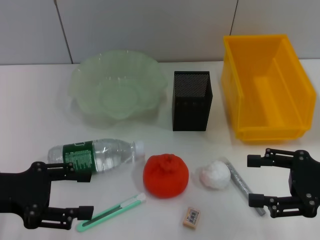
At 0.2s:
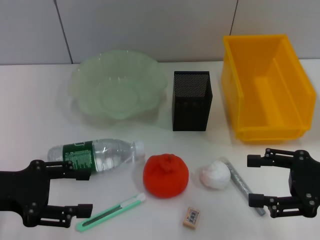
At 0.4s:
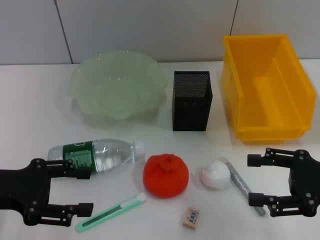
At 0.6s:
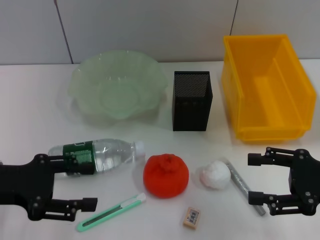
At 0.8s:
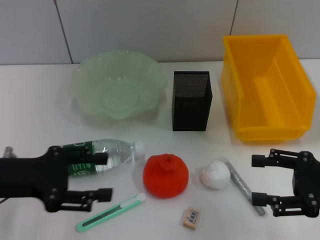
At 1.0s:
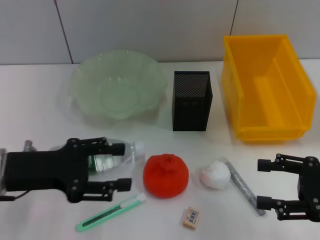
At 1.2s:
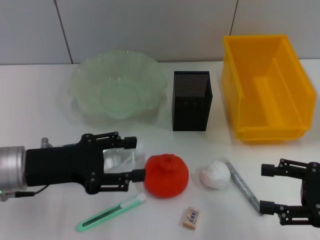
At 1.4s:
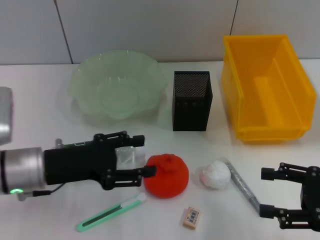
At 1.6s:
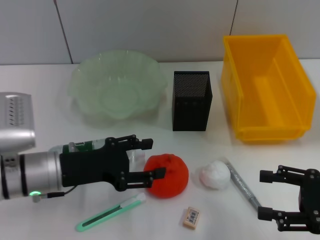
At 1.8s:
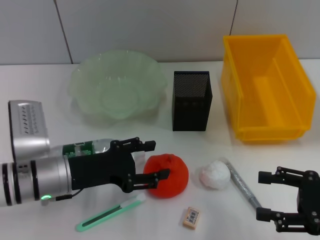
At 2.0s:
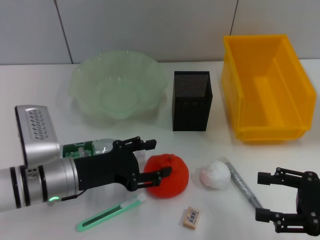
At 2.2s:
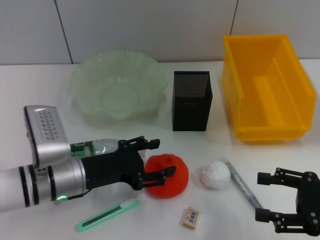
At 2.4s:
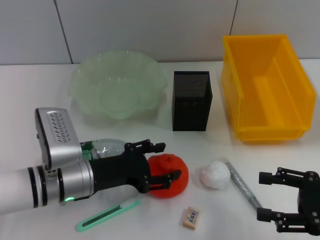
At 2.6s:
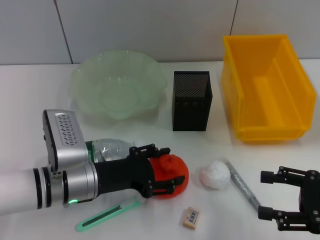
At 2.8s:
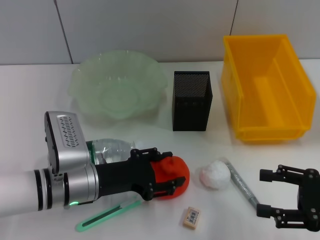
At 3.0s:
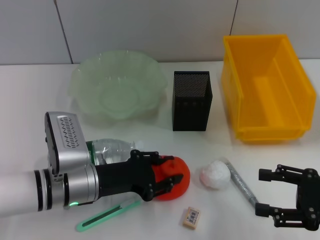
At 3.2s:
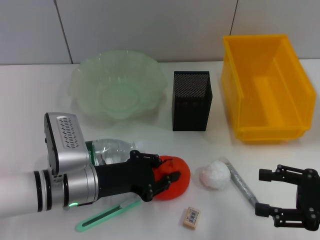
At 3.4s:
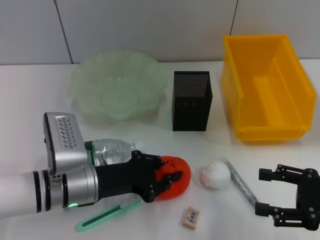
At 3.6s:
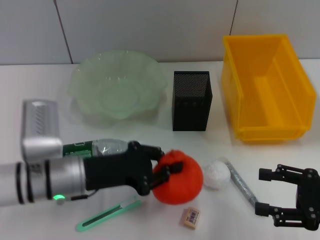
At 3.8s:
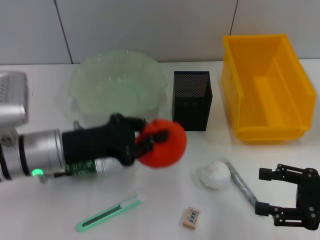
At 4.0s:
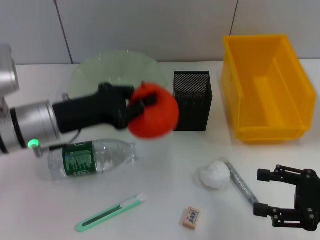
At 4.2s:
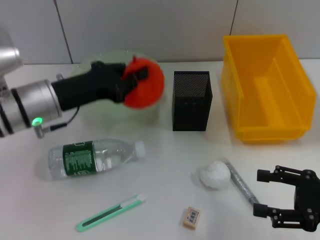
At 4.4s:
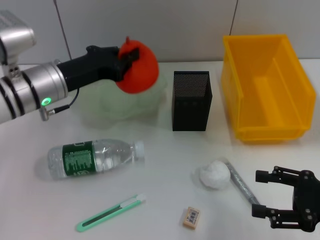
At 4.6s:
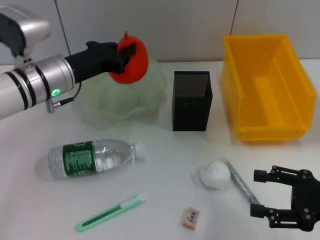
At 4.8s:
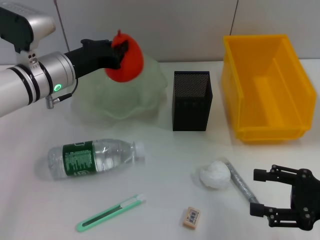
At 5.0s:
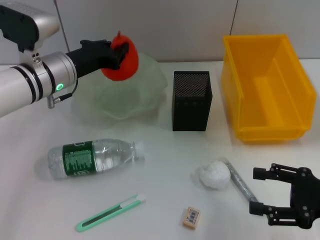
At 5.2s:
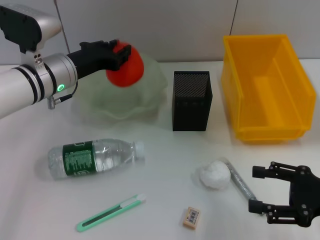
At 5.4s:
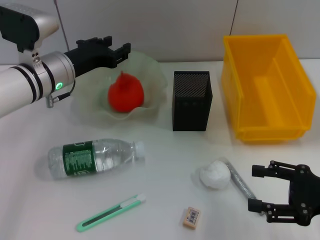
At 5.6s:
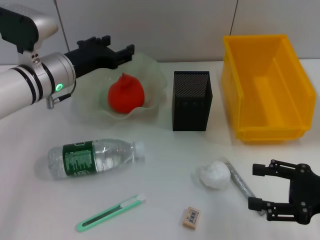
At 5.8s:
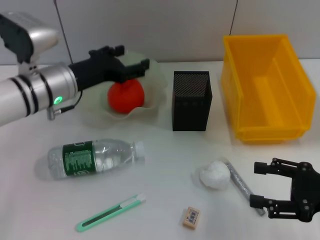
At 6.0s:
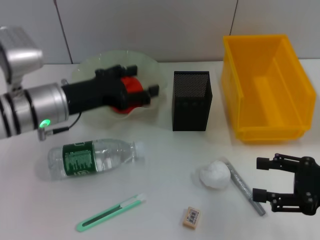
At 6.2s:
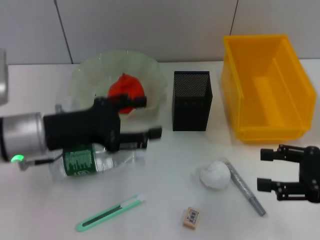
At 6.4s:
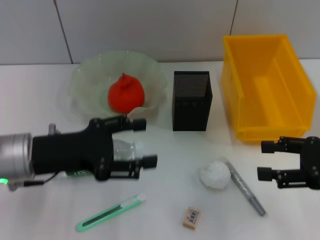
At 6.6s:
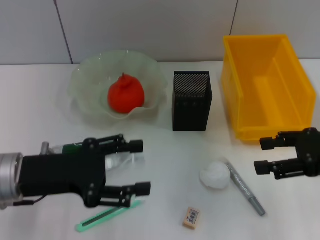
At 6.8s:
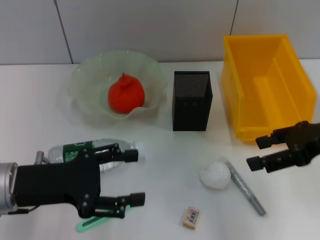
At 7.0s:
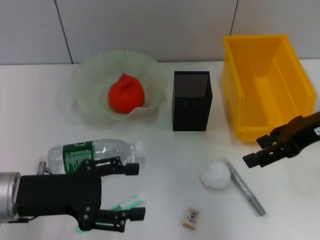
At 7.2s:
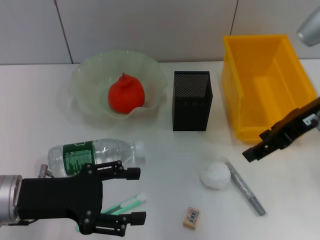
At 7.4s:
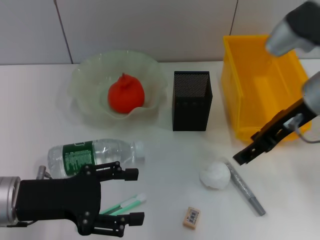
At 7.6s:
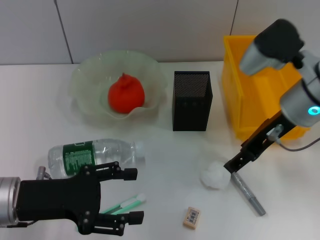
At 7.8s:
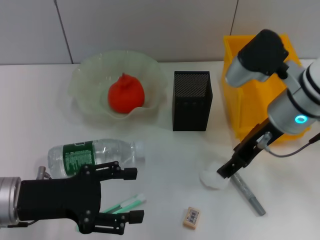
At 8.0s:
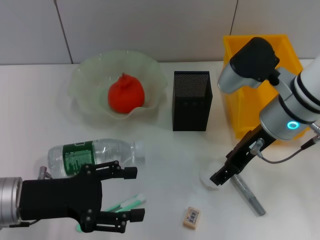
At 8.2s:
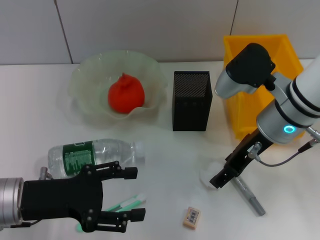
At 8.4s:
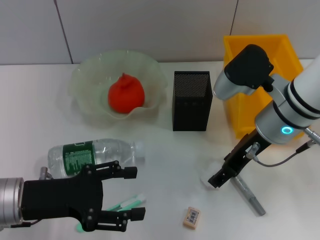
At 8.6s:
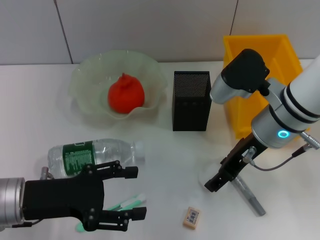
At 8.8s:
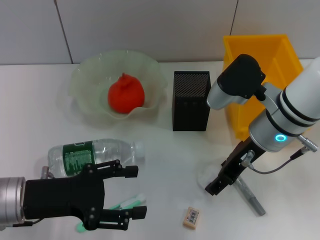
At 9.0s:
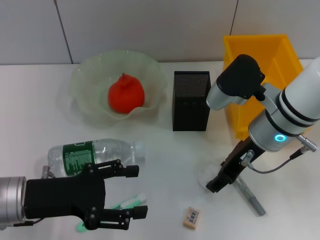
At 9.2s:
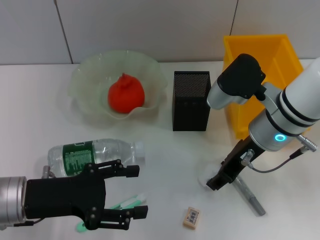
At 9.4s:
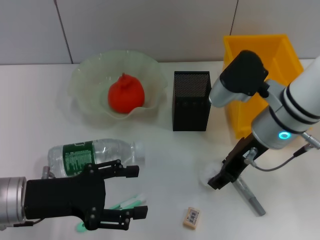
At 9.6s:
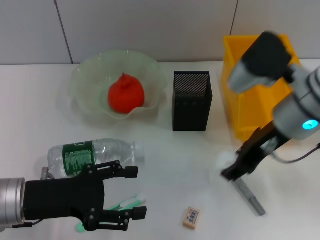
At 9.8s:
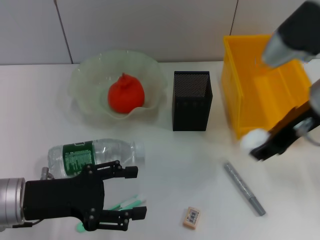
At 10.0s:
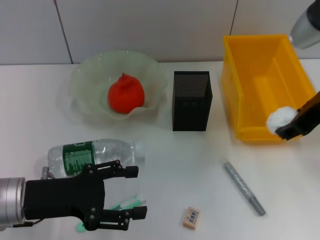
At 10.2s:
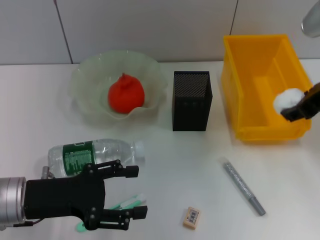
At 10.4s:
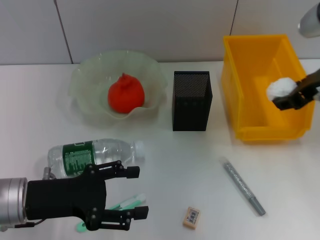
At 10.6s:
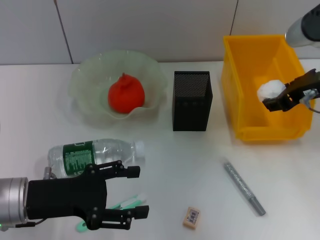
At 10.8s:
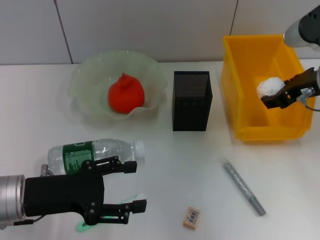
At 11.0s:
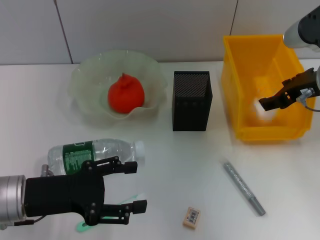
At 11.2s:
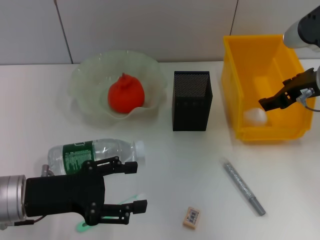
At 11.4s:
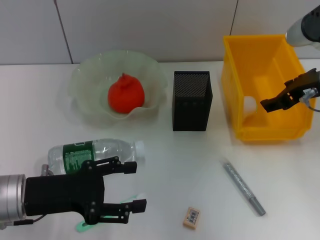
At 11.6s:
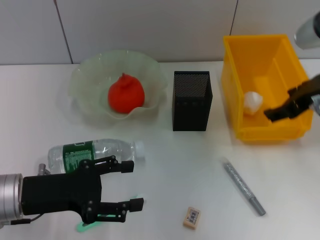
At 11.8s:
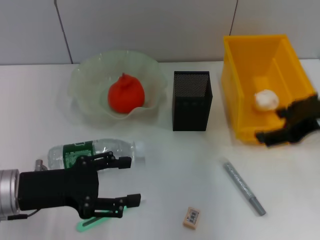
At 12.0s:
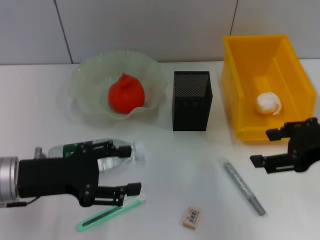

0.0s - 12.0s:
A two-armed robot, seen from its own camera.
Step, 0.0s - 3.2s: Grab the orange with the left hand.
Step, 3.4s - 5.4s: Place the orange into the fruit bowl with the left hand.
Step, 5.8s - 9.2s: Grab the paper ball with the right hand.
Step, 9.4s - 11.2s: Place the paper ball into the trash can with the right hand.
0.0s - 1.6s: The left gripper is displaced to the right and downward by approximately 10 cm.
1.6s - 3.0s: The left gripper changes place by roughly 5 cm.
3.0s - 4.4s: The left gripper moves forward and upward, roughly 15 cm, and closes up.
4.4s - 6.0s: The left gripper opens.
6.0s - 7.6s: The left gripper shifts roughly 10 cm backward. The right gripper shifts roughly 20 cm to the left, forward and upward.
7.6s - 9.0s: The right gripper ends up roughly 5 cm from where it was.
9.0s - 10.4s: The right gripper is displaced to the right and upward by roughly 10 cm.
10.4s - 12.0s: The right gripper is displaced backward by some 10 cm.

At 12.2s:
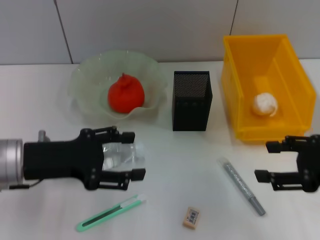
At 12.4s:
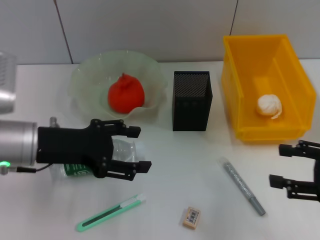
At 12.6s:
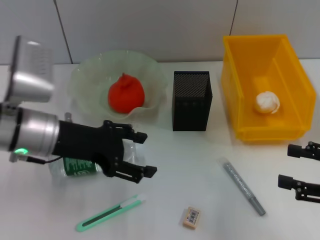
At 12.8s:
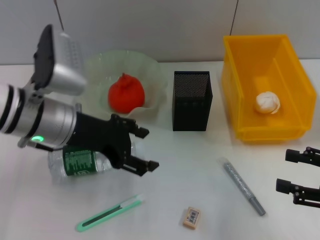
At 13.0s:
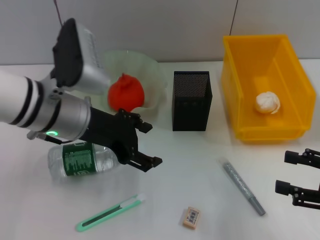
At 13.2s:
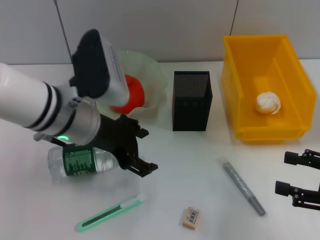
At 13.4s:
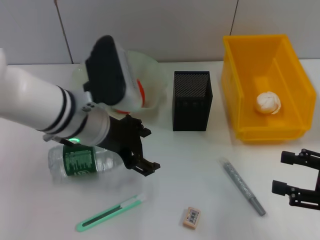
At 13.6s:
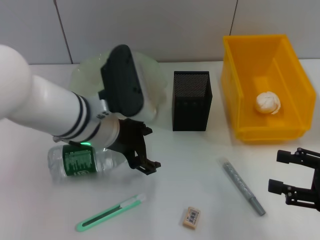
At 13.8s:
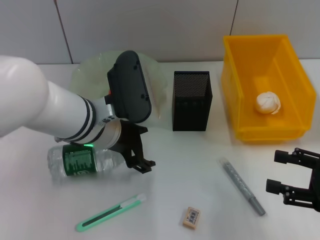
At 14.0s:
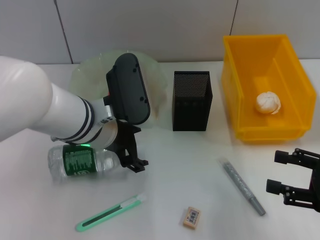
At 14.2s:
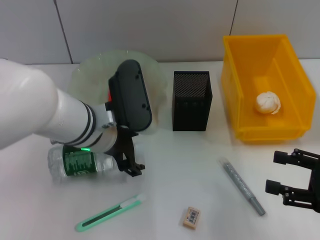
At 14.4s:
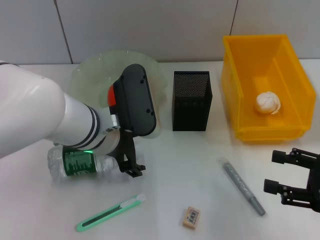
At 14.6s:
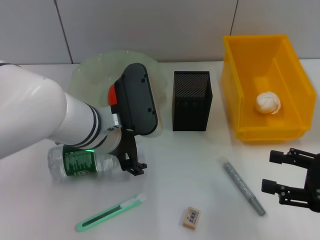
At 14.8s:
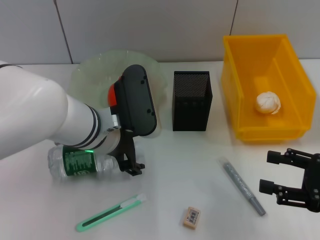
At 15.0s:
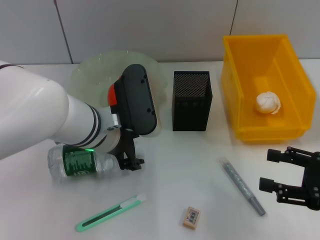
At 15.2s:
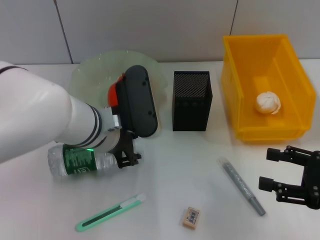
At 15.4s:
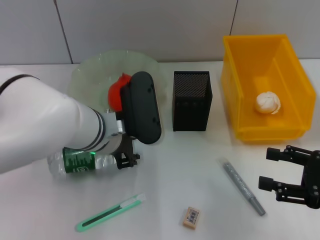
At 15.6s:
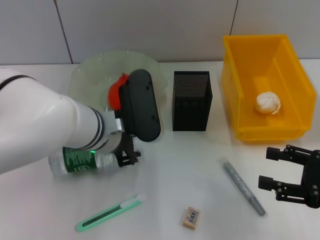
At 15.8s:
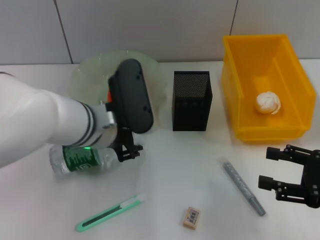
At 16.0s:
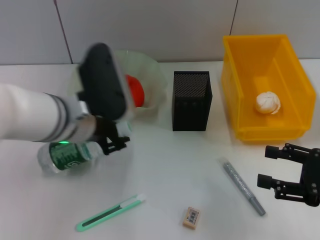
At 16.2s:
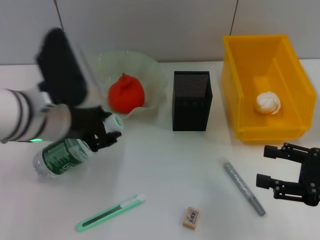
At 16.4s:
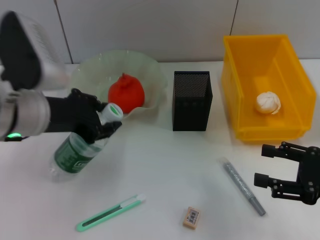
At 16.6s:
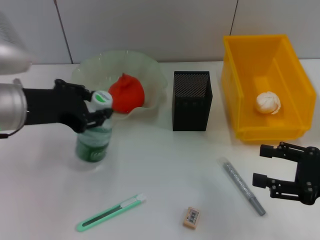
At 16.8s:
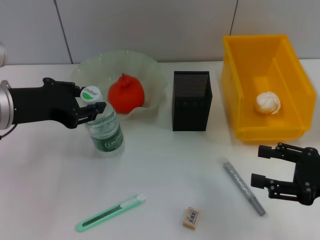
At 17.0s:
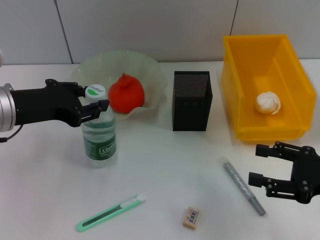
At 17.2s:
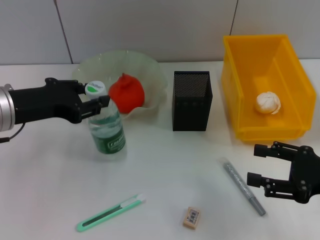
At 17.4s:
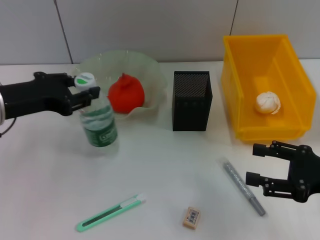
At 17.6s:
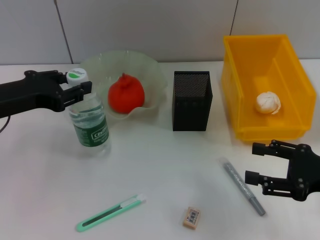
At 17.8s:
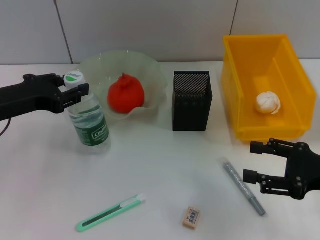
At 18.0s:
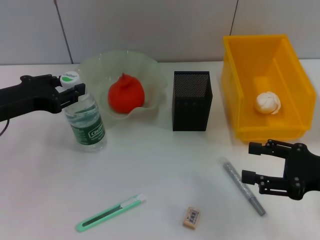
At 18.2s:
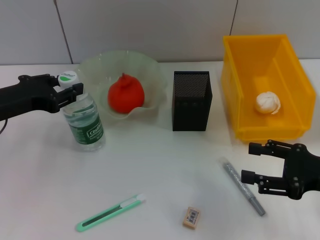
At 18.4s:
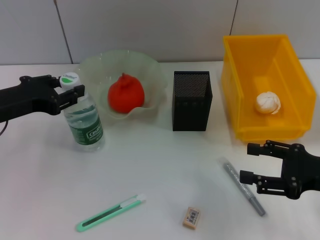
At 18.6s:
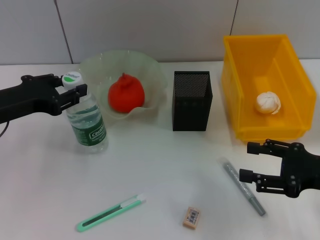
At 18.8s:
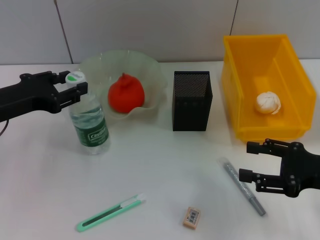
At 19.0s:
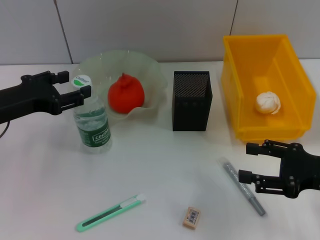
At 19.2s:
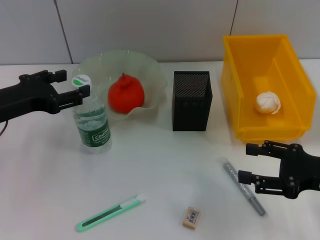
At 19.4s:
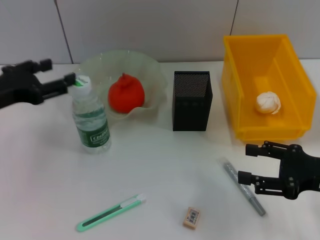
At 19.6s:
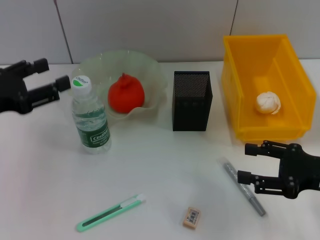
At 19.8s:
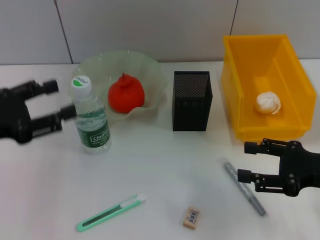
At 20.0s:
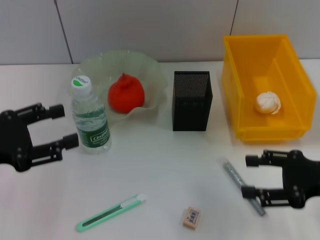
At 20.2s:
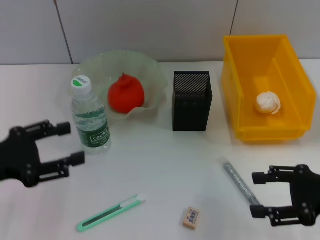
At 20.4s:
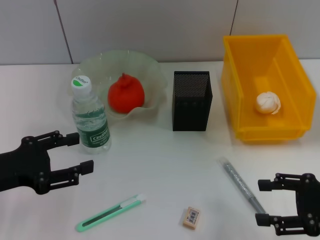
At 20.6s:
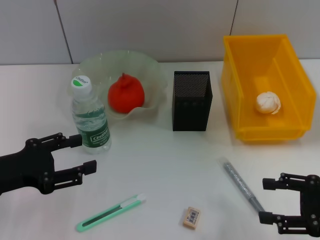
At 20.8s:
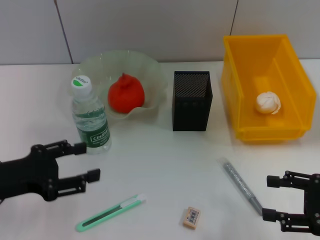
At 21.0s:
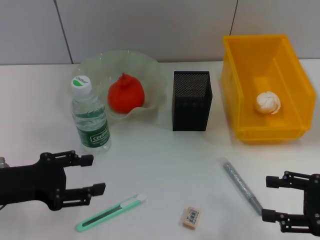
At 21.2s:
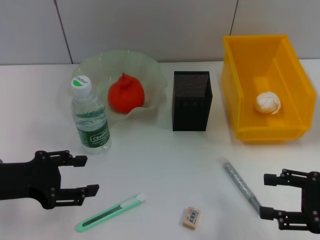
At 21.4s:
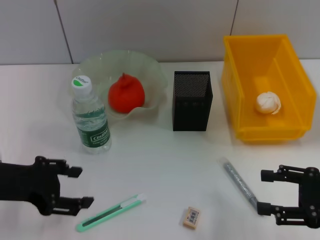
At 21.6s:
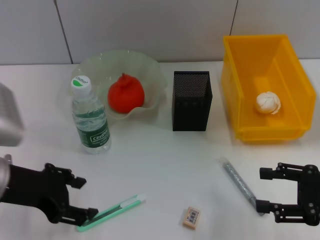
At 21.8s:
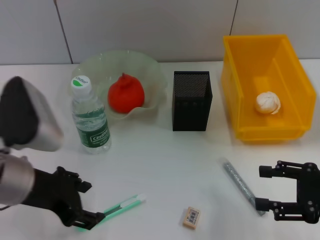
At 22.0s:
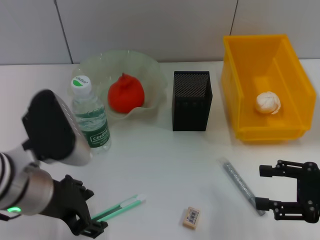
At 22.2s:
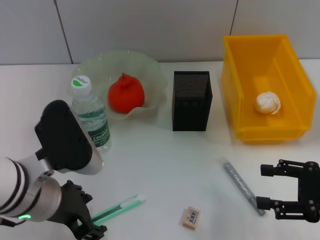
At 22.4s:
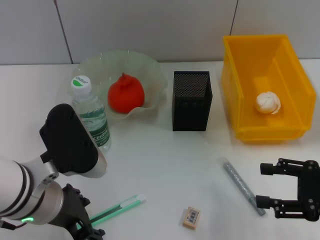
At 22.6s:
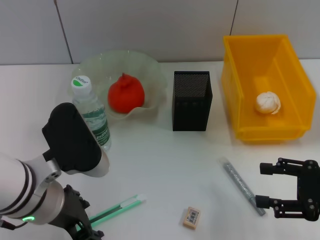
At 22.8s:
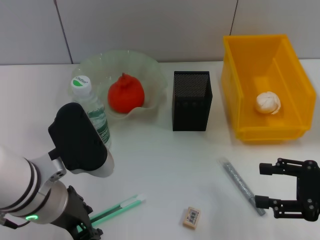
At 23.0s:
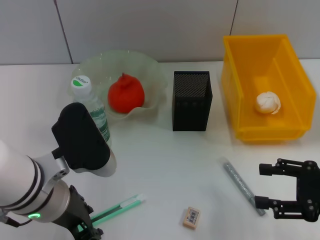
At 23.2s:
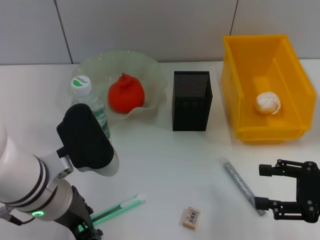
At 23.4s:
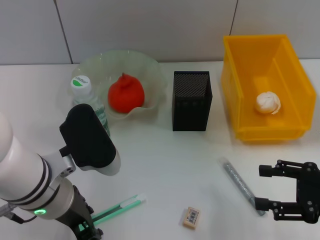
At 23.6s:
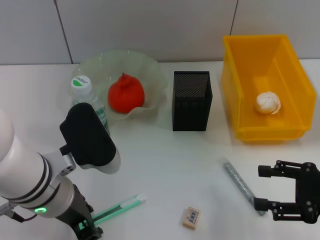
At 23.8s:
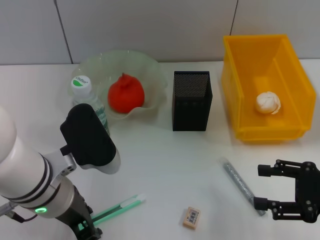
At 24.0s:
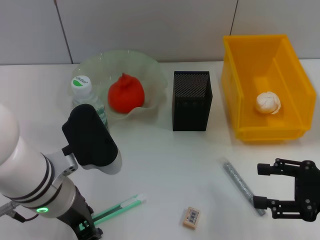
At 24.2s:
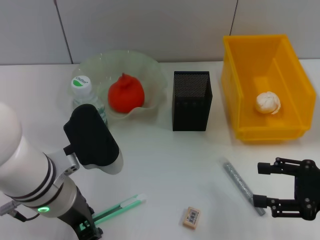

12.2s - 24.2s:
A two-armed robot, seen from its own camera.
Step, 12.2s - 15.4s: Grab the water bottle with the left hand.
Step, 15.6s - 19.0s: Place the water bottle on the table with the left hand.
12.2s - 13.8s: The left gripper heads to the right and forward, covering about 15 cm. The right gripper travels downward by roughly 5 cm.
13.8s - 15.2s: The grippers move only a little.
15.2s - 16.6s: The left gripper heads to the left and upward, covering roughly 15 cm, and closes.
16.6s - 18.2s: The left gripper moves to the left, about 5 cm.
18.2s - 19.8s: The left gripper shifts some 5 cm backward, and opens.
21.2s - 22.6s: The left gripper heads to the right, covering roughly 15 cm.
22.6s - 24.2s: There are only small adjustments of the grippers.
